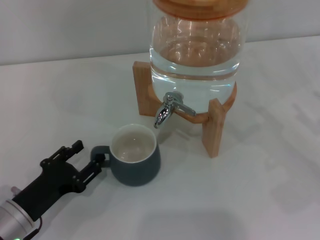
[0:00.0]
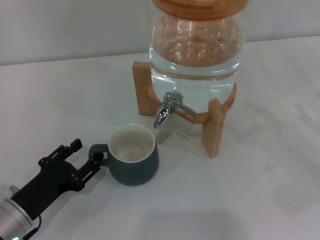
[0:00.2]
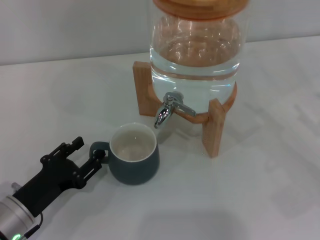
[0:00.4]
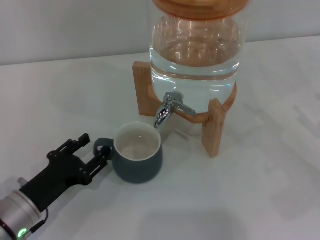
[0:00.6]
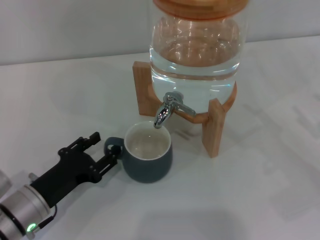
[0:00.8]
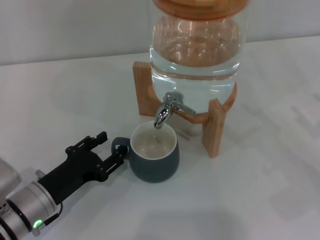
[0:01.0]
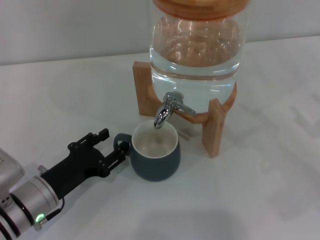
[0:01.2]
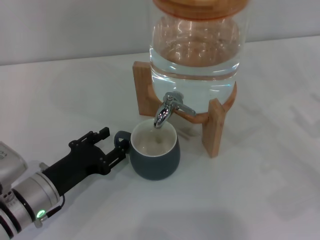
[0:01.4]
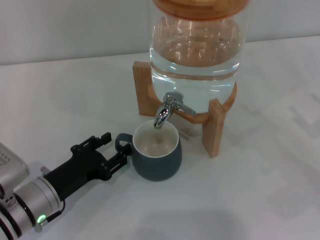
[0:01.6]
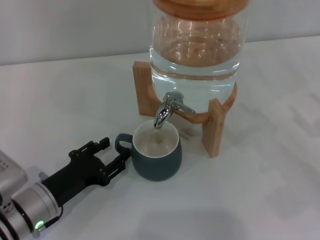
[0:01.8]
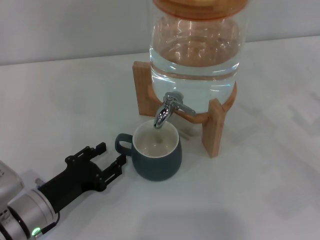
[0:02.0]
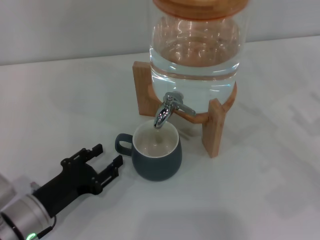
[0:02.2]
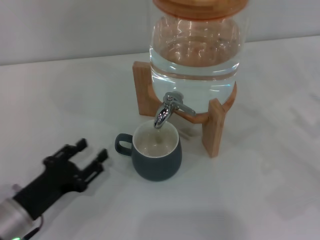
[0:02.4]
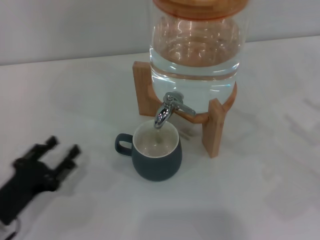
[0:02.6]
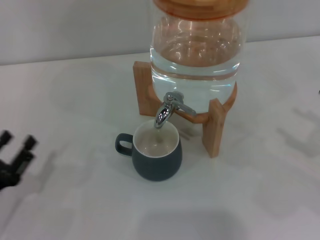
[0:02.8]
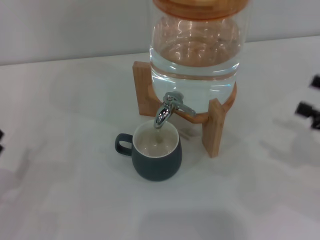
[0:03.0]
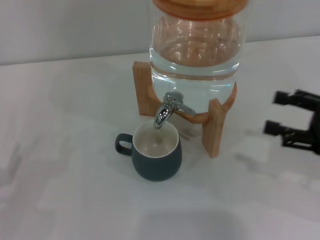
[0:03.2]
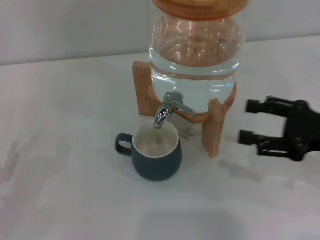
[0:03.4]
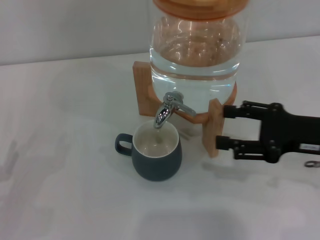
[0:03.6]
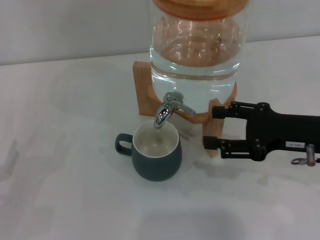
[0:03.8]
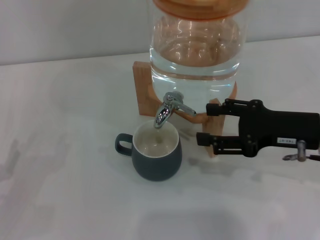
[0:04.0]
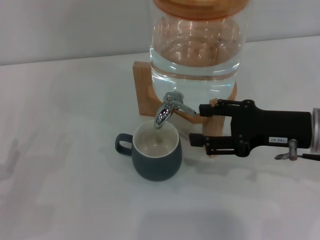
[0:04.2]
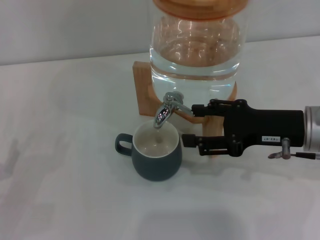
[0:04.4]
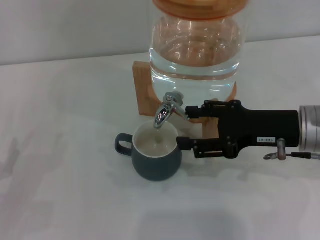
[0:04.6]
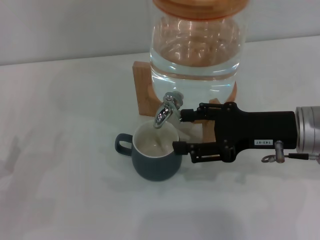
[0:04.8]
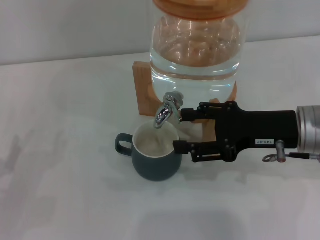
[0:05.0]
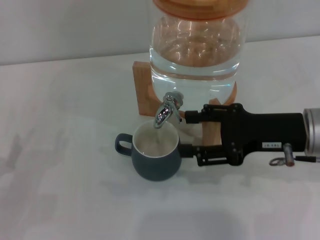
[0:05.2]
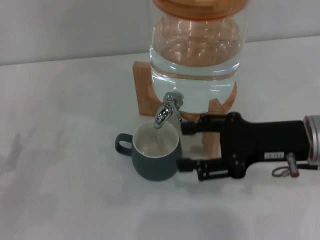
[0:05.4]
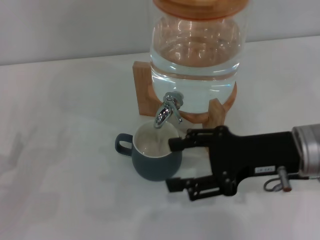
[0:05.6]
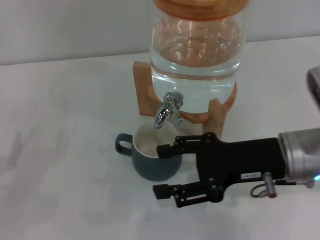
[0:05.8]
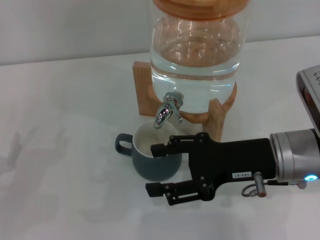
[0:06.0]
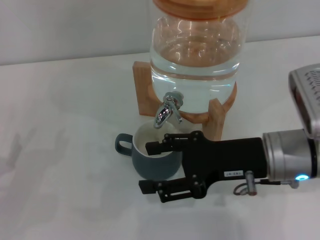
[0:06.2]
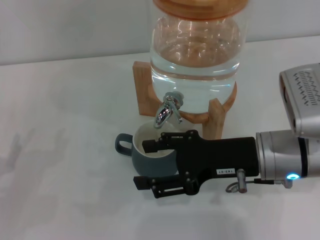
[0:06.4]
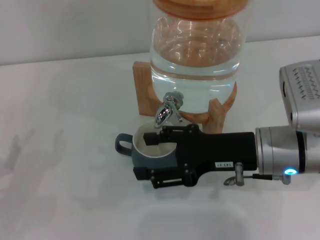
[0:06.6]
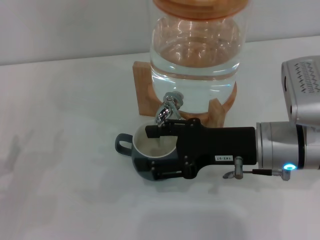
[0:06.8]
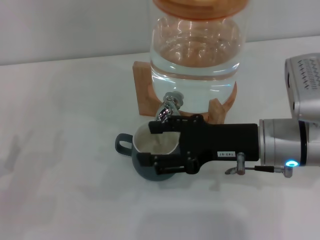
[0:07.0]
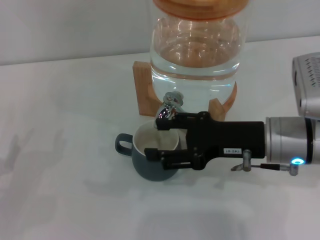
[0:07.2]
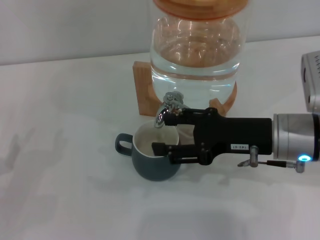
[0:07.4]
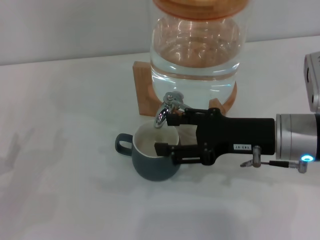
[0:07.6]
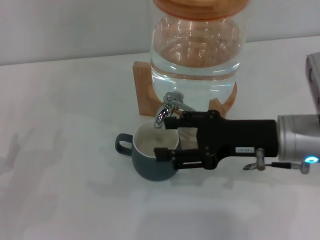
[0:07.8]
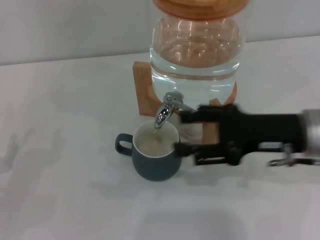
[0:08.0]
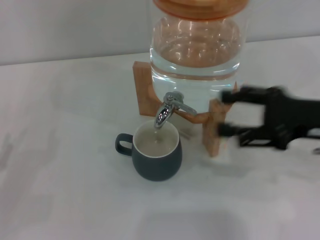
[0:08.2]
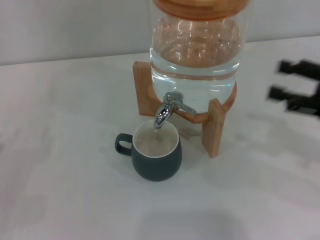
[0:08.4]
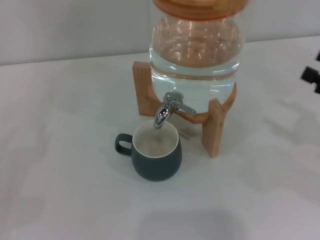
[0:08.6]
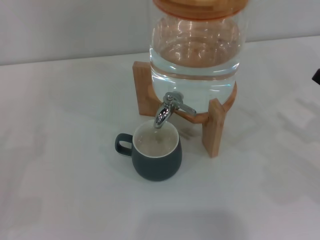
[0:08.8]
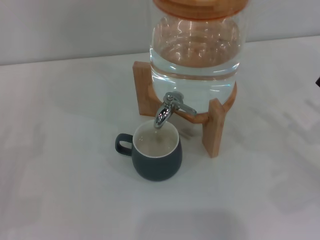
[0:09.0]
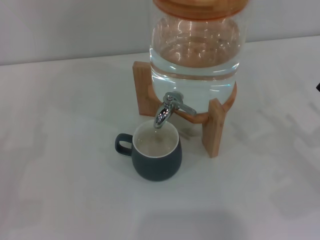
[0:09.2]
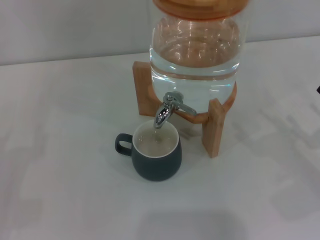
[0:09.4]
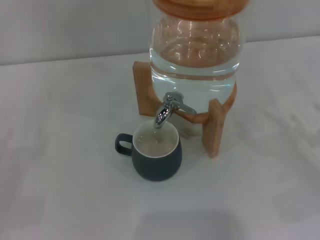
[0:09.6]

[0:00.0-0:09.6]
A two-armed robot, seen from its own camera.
Task of the whole recording: the left gripper pick up the black cup and place it horizontally under the faucet, the right gripper turn on the faucet to fill the cup, and then turn off the faucet.
Step, 0:00.0 to 0:02.2: Move the cup beneath the water dispenser nozzle with the left gripper.
Step, 0:02.4 to 0:05.0: Open the dispenser valve and fill the cup with water with the right gripper.
Step, 0:05.2 to 0:08.0: Close the dispenser valve with the right gripper.
0:00.0 to 0:01.6: The grippers make only small movements.
0:01.6 to 0:03.2: The right gripper is displaced upward by about 5 cm, while the left gripper travels to the left and backward by some 15 cm.
0:03.2 to 0:04.8: The right gripper moves to the left and forward, some 10 cm.
0:04.8 to 0:06.4: The right gripper travels to the left by some 5 cm.
0:06.4 to 0:08.0: The right gripper is displaced to the right by some 5 cm.
0:08.0 to 0:09.6: The right gripper is displaced to the right, downward and backward by some 20 cm.
